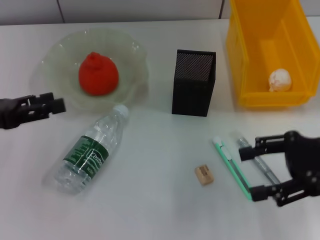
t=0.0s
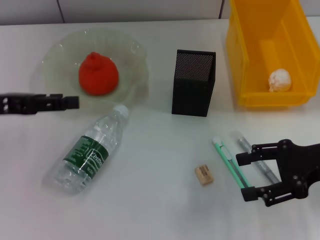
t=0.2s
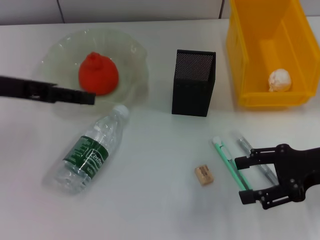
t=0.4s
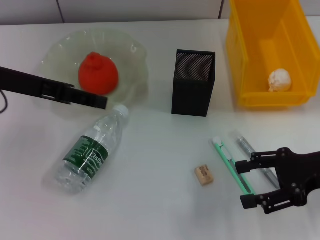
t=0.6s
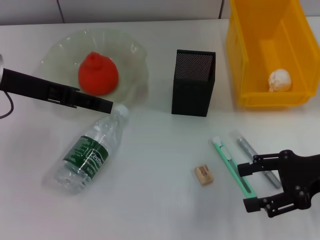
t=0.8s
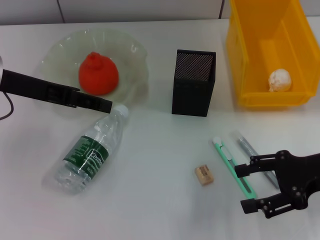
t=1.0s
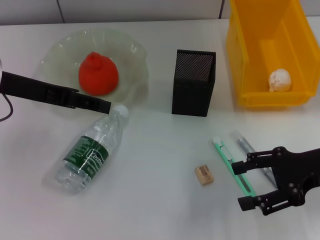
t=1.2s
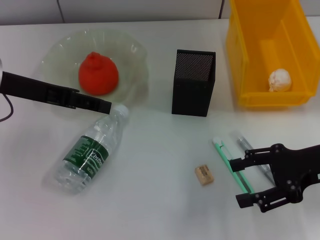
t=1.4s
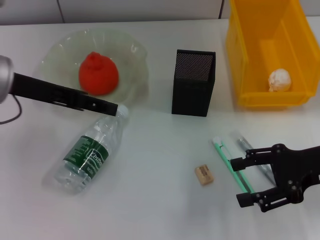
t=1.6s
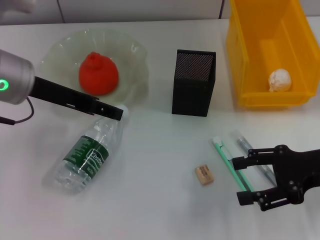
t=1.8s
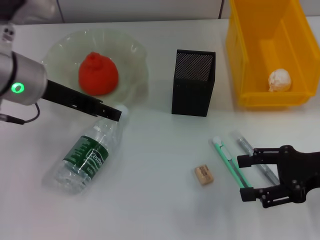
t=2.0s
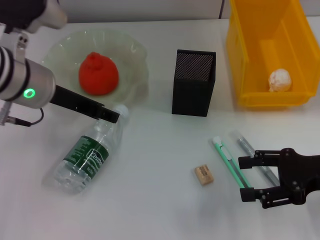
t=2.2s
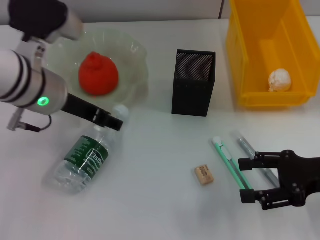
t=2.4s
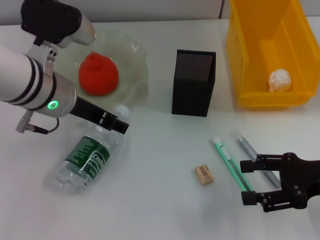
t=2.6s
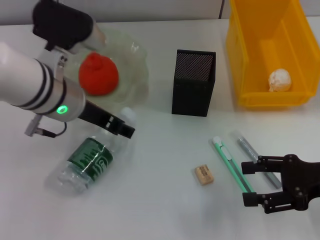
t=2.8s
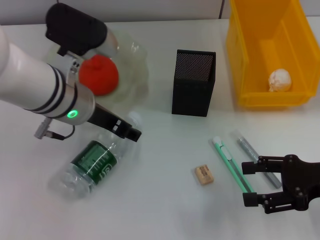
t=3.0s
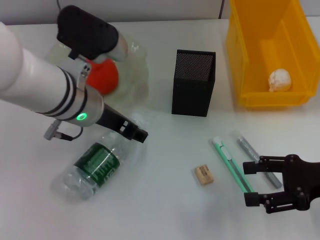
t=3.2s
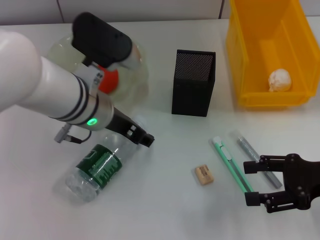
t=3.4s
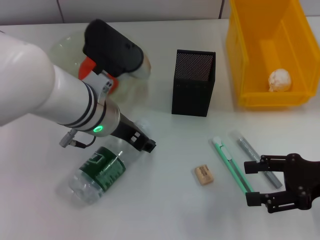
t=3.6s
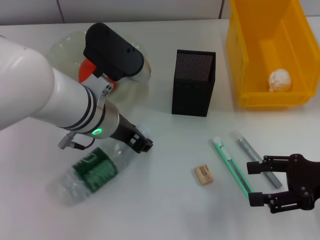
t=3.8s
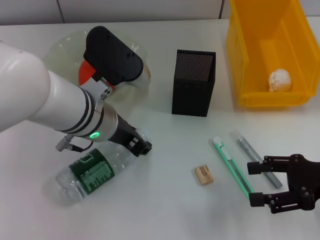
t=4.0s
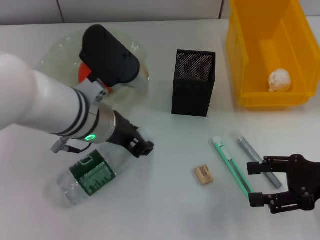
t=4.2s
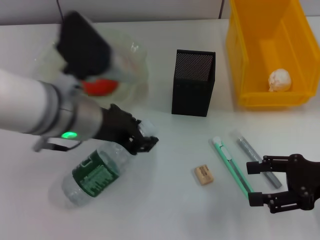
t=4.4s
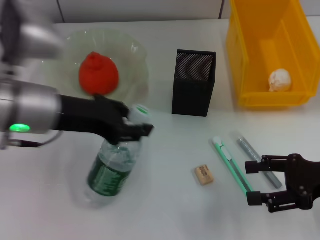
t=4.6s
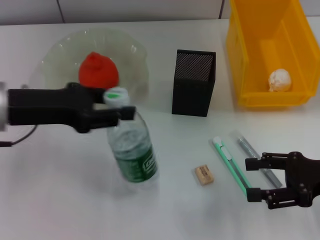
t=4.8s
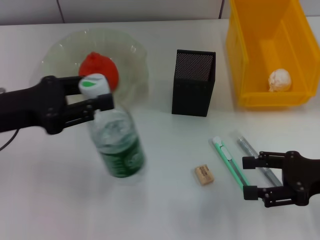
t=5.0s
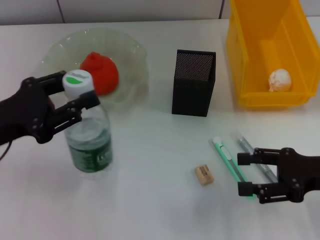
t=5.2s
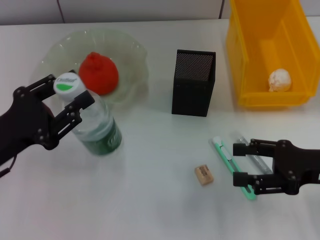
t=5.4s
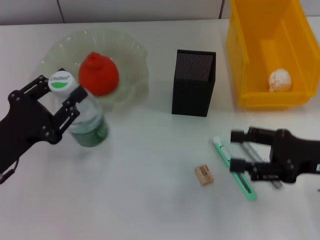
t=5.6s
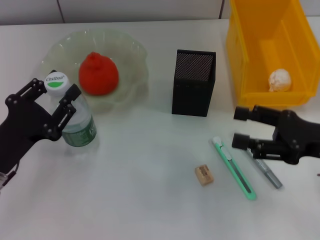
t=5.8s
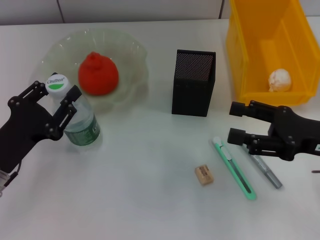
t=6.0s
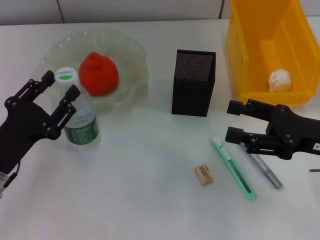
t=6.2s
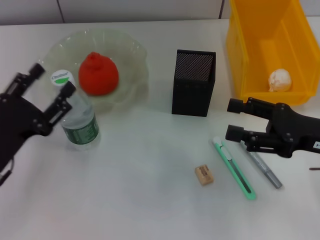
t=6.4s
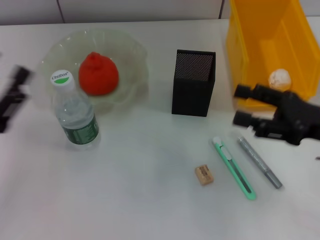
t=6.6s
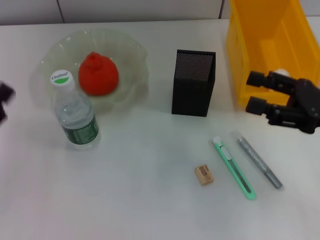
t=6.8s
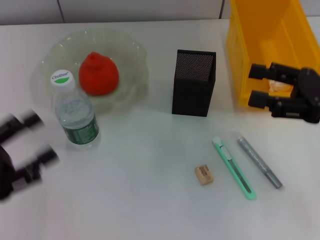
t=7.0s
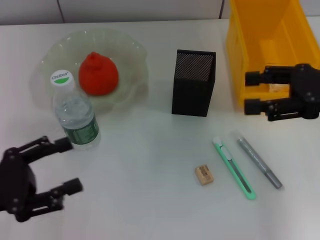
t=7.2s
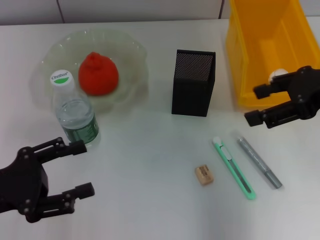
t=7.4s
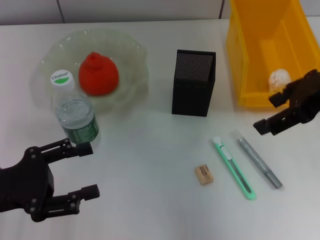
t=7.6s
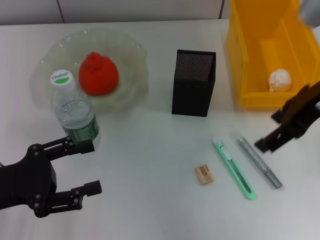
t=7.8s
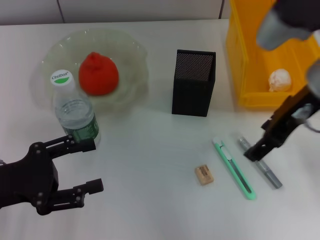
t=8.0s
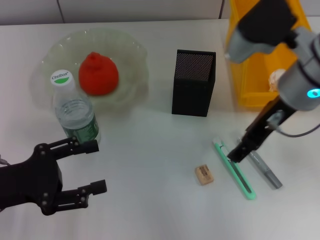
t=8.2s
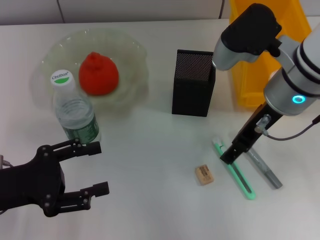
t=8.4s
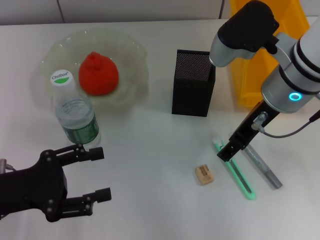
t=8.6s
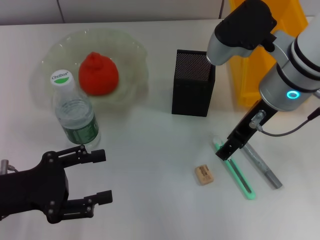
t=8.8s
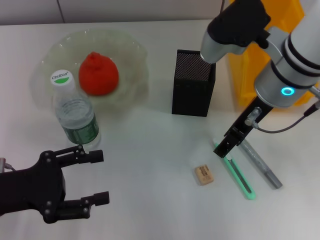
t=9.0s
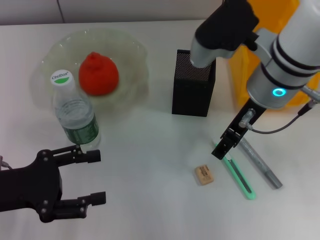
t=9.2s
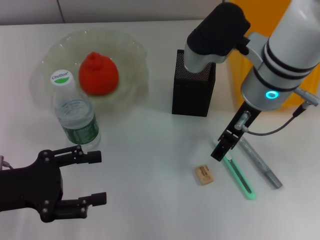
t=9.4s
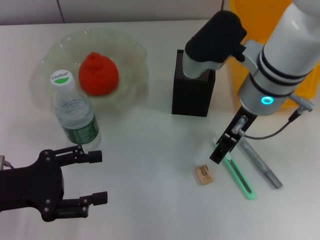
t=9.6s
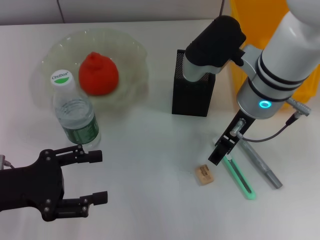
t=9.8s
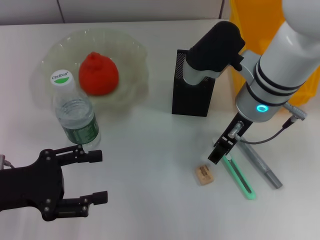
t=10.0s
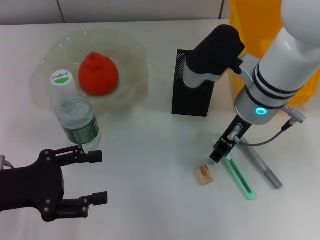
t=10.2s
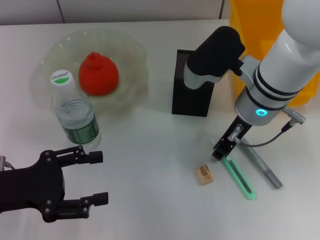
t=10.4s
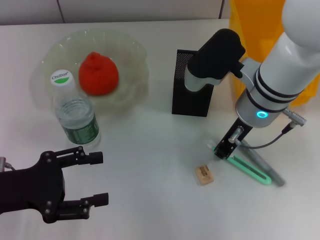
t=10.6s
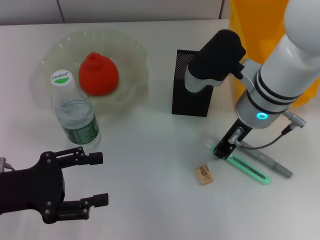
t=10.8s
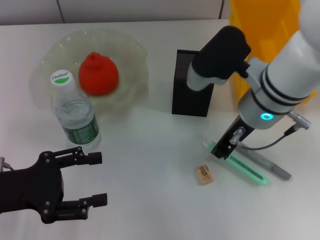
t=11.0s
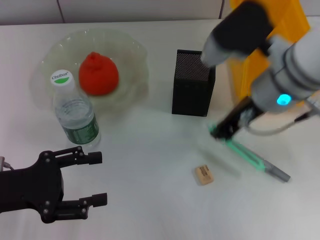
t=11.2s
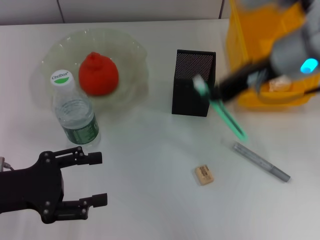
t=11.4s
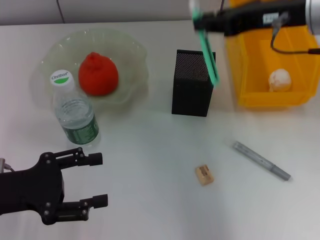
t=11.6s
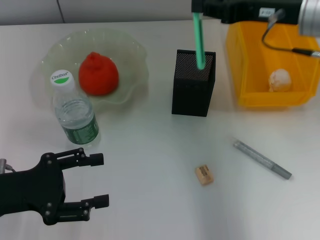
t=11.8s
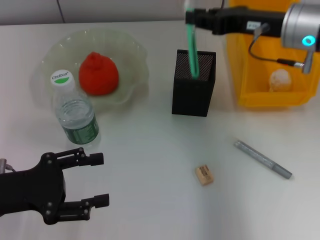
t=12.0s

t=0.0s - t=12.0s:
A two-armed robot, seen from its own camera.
Step, t=0.0s - t=4.0s: Grab the water bottle with the left hand.
Step, t=4.2s - t=6.4s: Place the water bottle on the table with the left hand.
Step, t=6.6s - t=10.8s: Grab the blue utility knife with the right hand.
t=0.0s - t=1.6s: The left gripper travels to the right, upward and forward by about 15 cm.
t=1.6s - t=3.0s: The left gripper goes approximately 10 cm to the right and downward.
t=3.0s - t=4.4s: The left gripper closes up.
t=4.4s - t=6.0s: The left gripper moves to the left, downward and backward, roughly 20 cm.
t=6.0s - t=7.6s: The right gripper moves upward, roughly 15 cm, while the left gripper opens.
t=7.6s - t=9.0s: The right gripper travels to the left and downward by roughly 10 cm.
t=9.0s - t=10.4s: The right gripper moves roughly 5 cm, and closes its fingers.
t=10.4s - t=12.0s: The right gripper is displaced to the right by about 10 cm, goes upward and returns, some 10 cm each way, and closes.

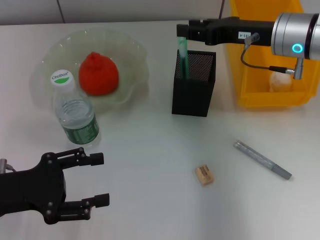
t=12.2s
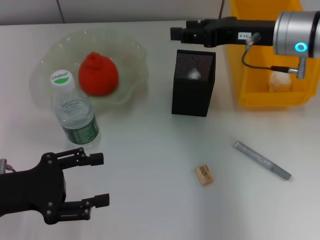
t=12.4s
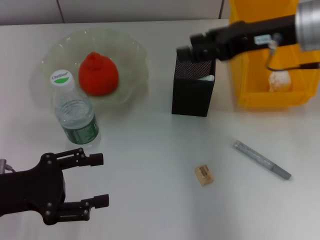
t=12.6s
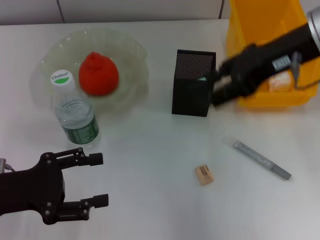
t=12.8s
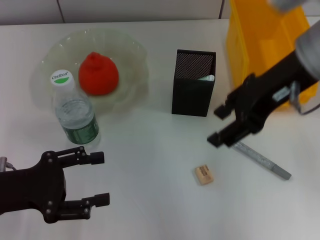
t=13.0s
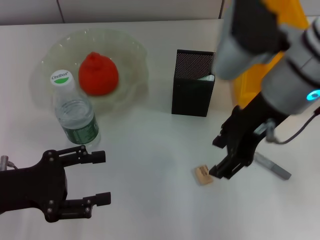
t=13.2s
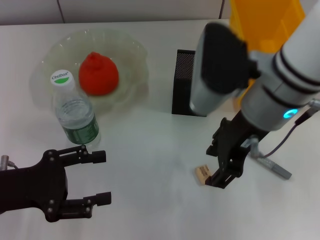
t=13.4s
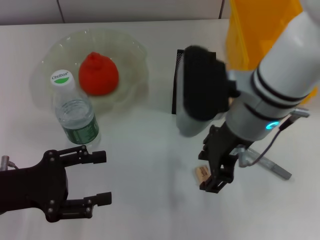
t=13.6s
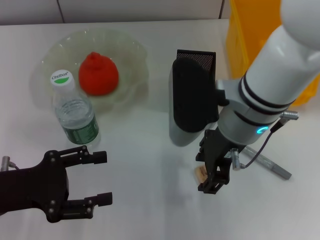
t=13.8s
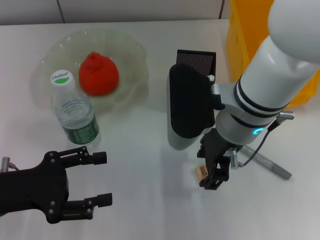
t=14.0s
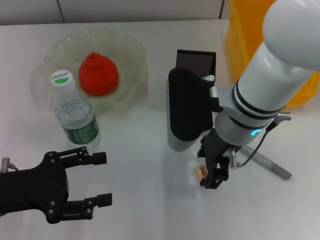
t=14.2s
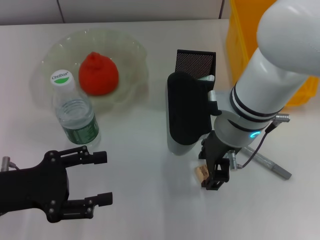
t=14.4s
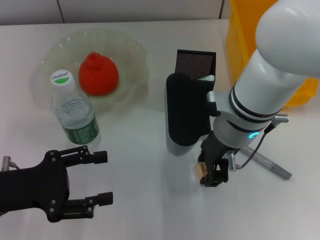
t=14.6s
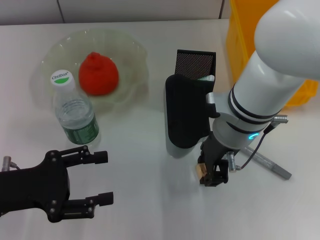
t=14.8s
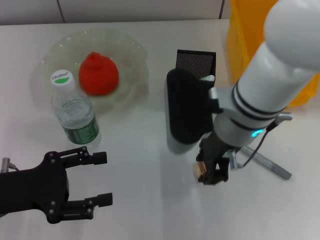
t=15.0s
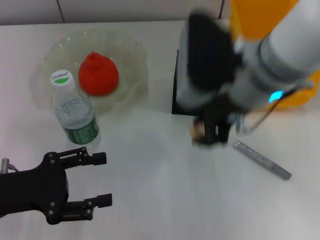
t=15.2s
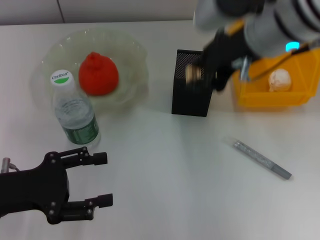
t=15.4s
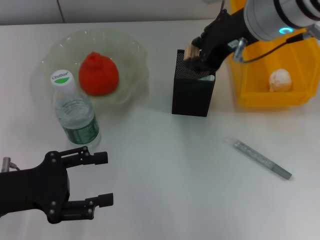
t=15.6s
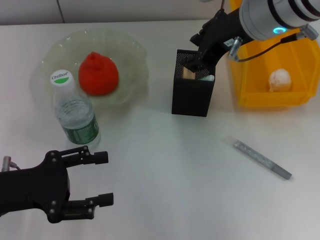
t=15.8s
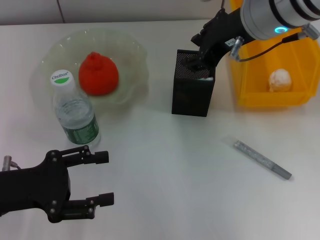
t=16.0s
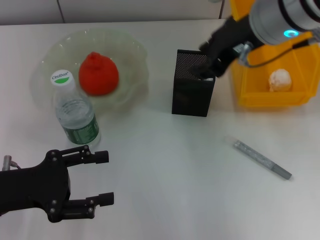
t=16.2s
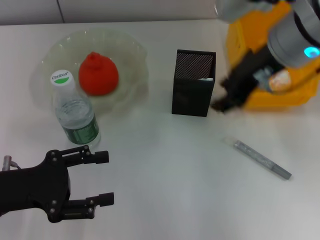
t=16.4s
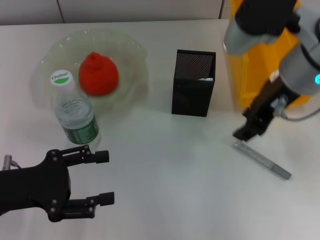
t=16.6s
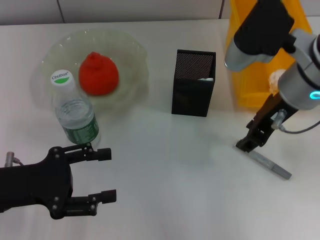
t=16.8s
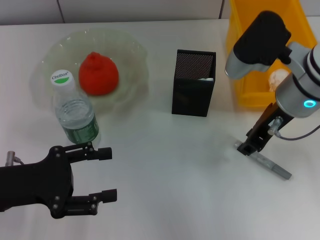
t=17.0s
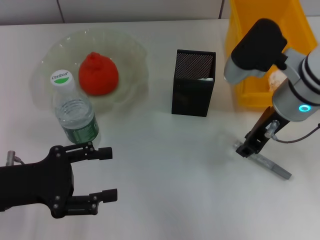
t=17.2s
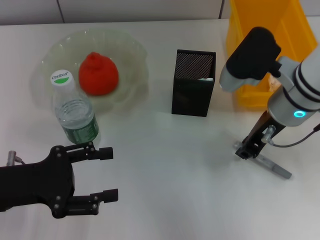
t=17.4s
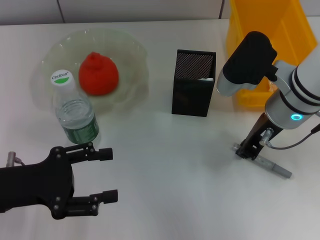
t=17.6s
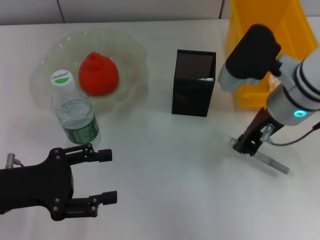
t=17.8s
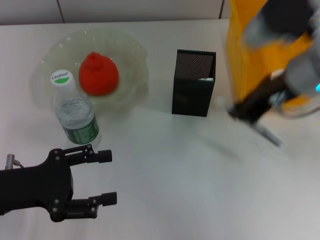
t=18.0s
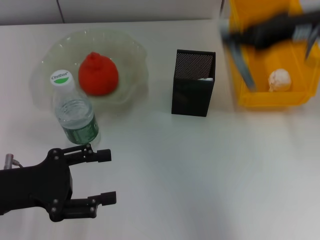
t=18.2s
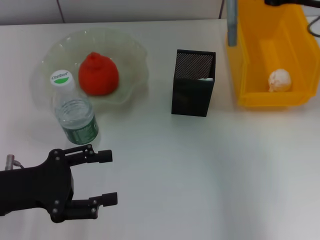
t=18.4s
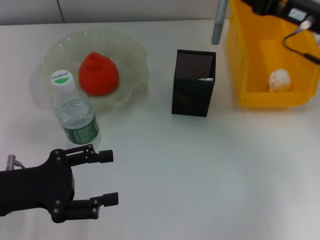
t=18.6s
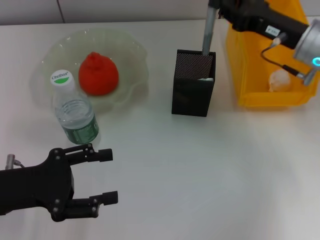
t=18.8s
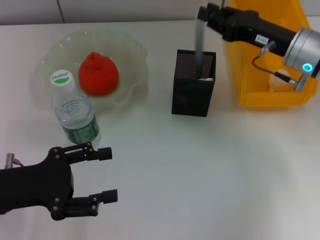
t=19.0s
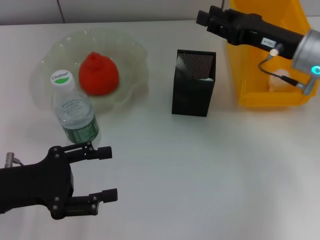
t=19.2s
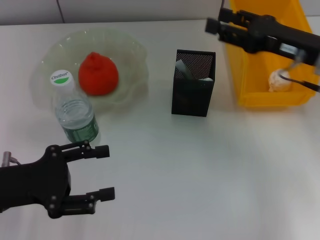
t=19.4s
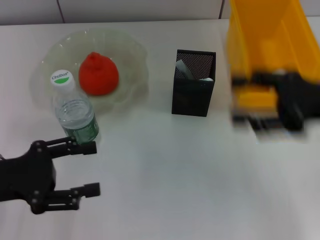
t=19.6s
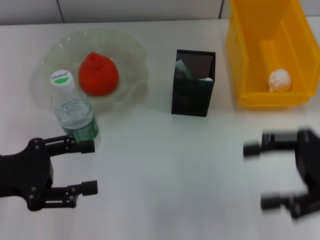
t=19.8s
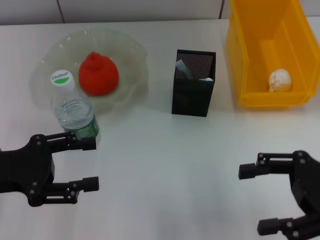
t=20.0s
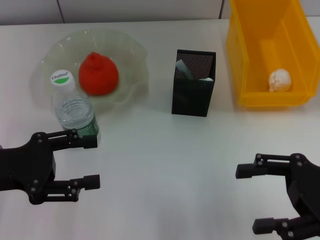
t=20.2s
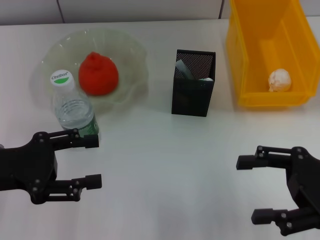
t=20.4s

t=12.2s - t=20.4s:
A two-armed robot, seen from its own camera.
Step, t=12.6s - t=14.6s: Grab the eraser with the right hand.
Step, t=14.8s - t=16.0s: Put the eraser into the pen holder with the right hand.
Step, t=16.2s - t=17.4s: Grab the gray glue with the right hand.
Step, t=17.8s - t=19.2s: Place the gray glue into the pen holder with the right hand.
t=12.2s - t=13.8s: The right gripper goes approximately 15 cm to the left and backward, and opens its fingers.
t=13.8s - t=15.4s: The right gripper heads upward, covering some 10 cm, and closes.
t=15.4s - t=17.2s: The right gripper shifts roughly 10 cm downward.
t=17.2s - t=18.8s: The right gripper shifts about 5 cm to the right, travels upward and back again, roughly 10 cm each way, and closes.
t=18.8s - t=20.4s: The right gripper heads backward, covering about 15 cm, and opens.

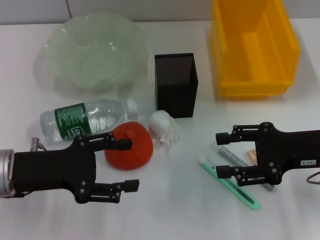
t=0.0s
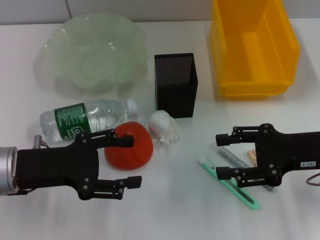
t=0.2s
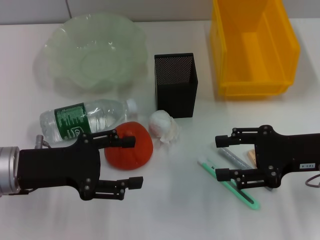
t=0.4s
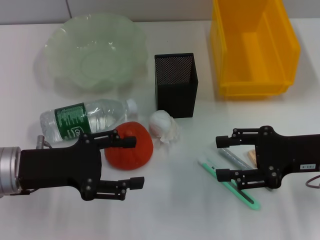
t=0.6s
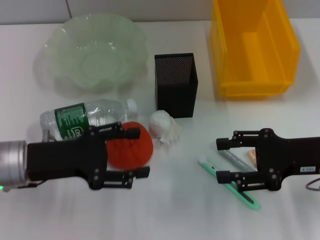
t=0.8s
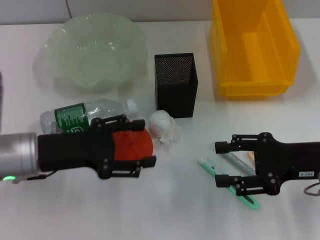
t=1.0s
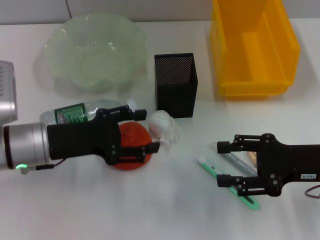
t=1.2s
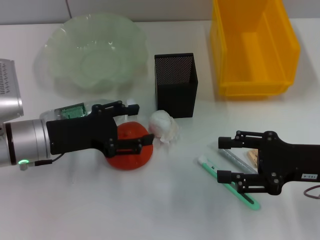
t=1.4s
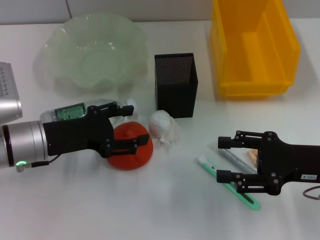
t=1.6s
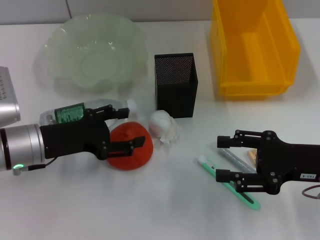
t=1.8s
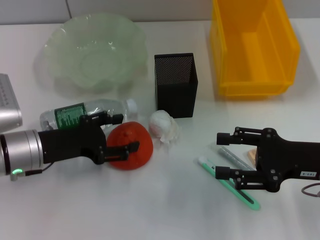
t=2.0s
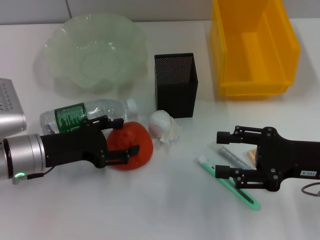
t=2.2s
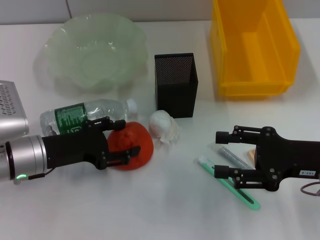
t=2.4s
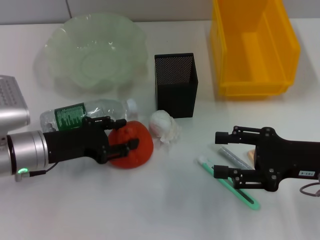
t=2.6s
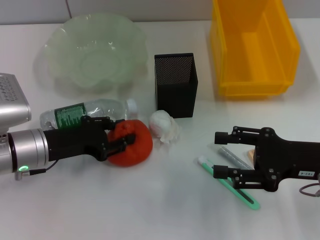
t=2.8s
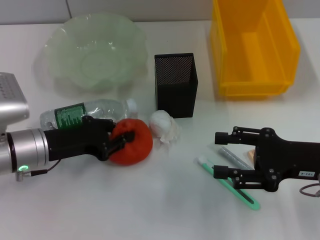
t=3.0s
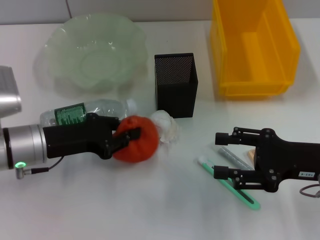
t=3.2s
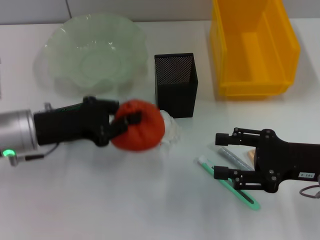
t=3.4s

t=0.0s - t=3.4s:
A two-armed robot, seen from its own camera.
Step, t=0.0s - t=2.8s: Grab the orange with the left hand.
t=0.0s - t=1.6s: The left gripper moves about 5 cm.
t=1.6s - t=3.4s: The left gripper closes.
